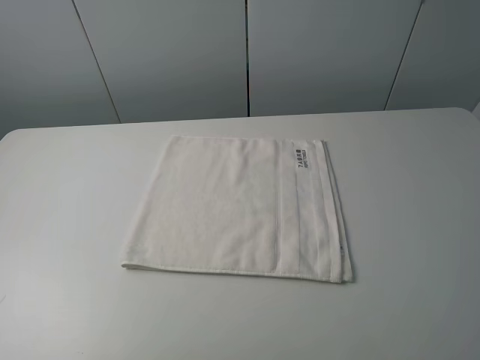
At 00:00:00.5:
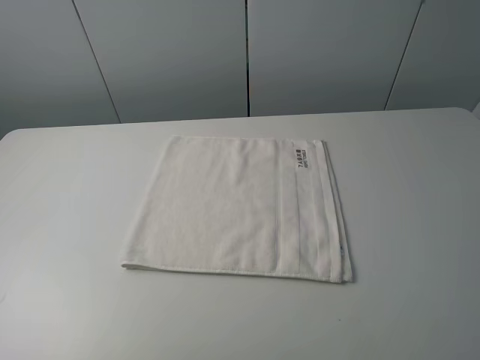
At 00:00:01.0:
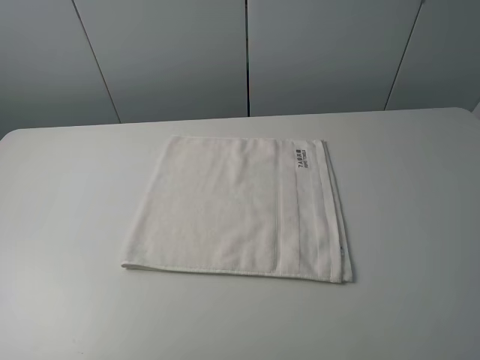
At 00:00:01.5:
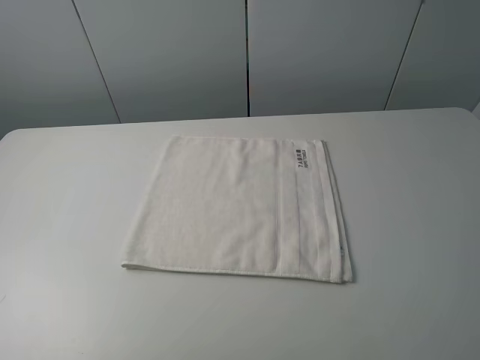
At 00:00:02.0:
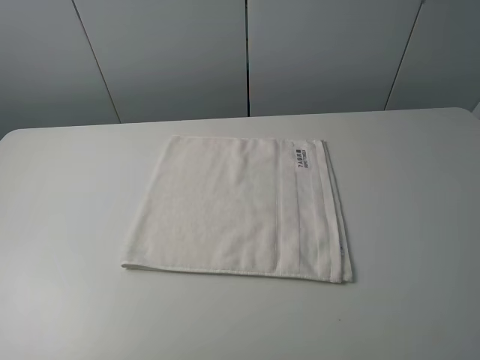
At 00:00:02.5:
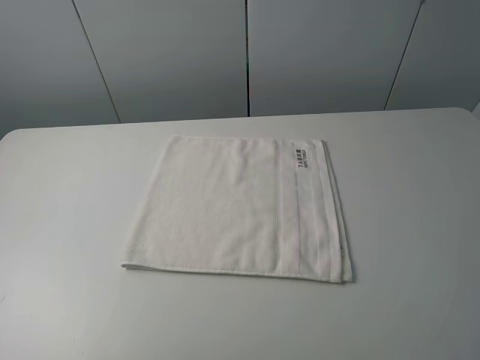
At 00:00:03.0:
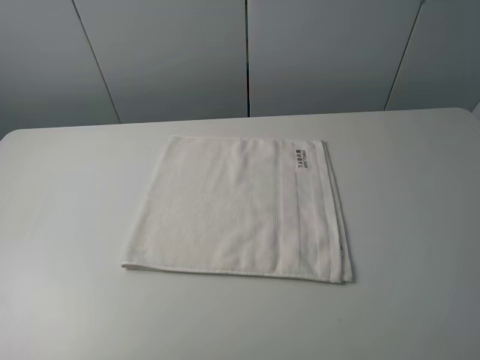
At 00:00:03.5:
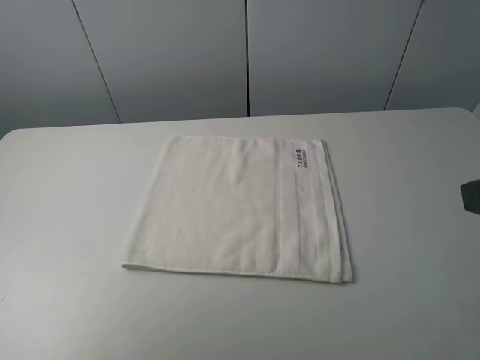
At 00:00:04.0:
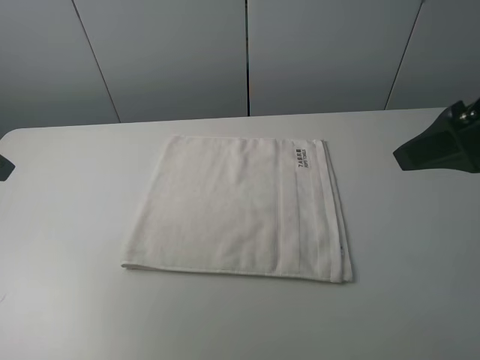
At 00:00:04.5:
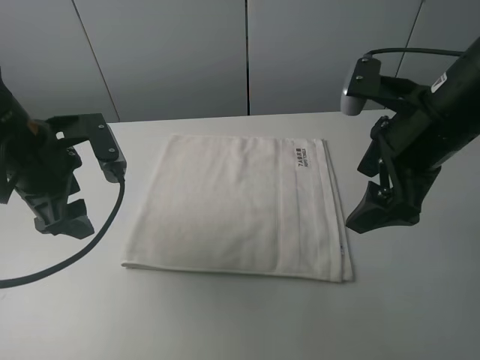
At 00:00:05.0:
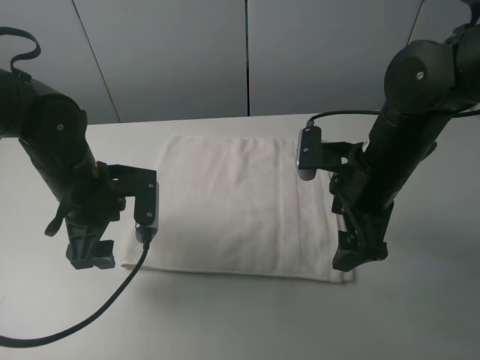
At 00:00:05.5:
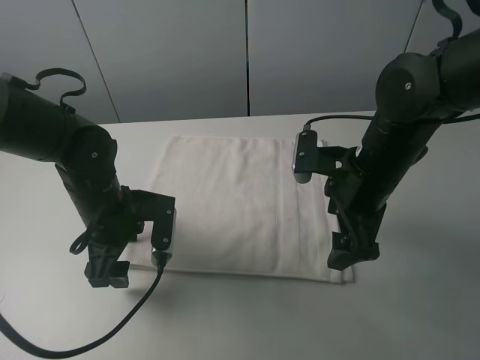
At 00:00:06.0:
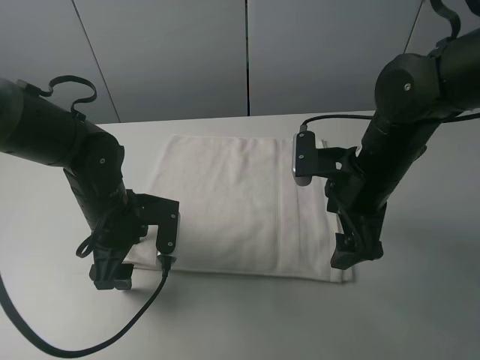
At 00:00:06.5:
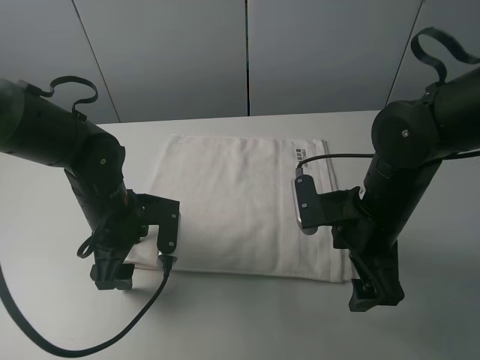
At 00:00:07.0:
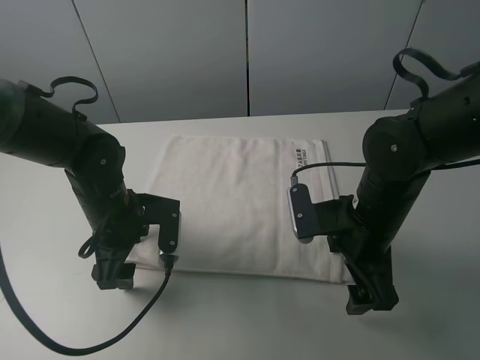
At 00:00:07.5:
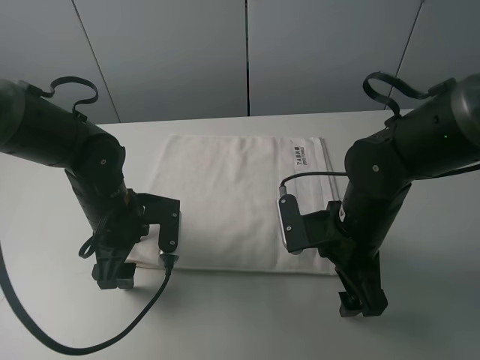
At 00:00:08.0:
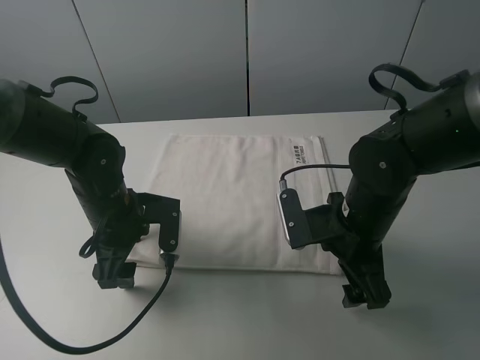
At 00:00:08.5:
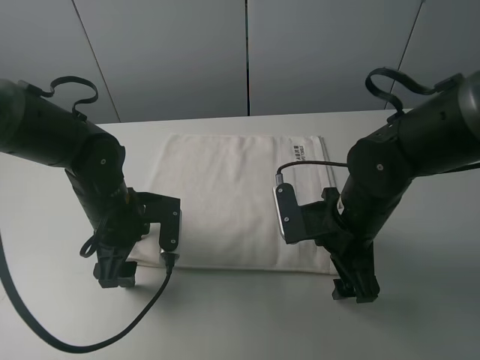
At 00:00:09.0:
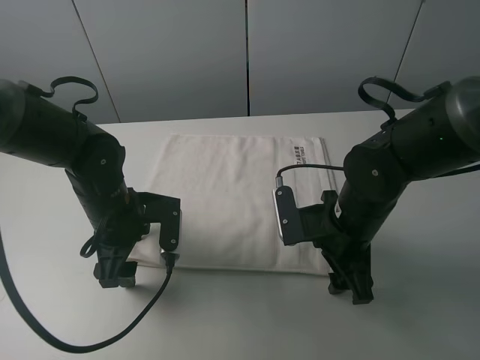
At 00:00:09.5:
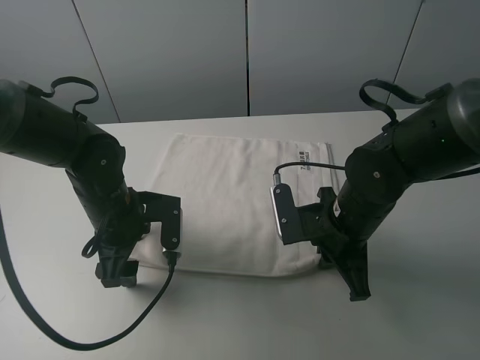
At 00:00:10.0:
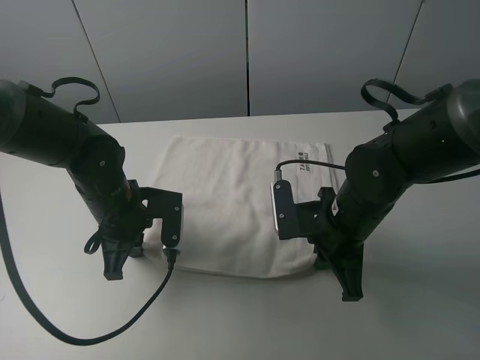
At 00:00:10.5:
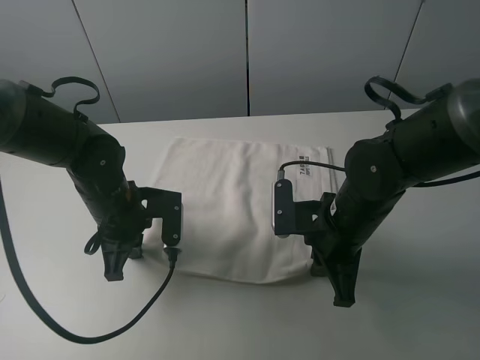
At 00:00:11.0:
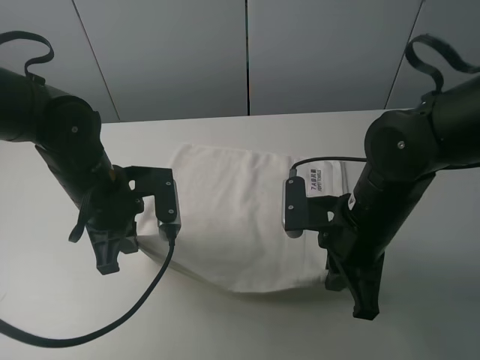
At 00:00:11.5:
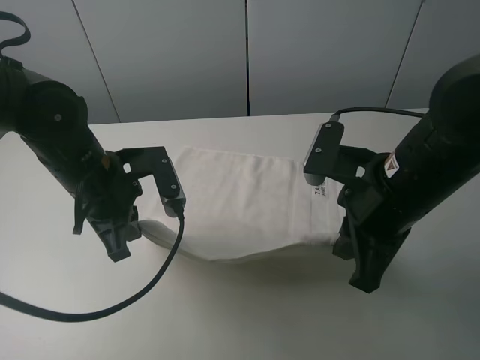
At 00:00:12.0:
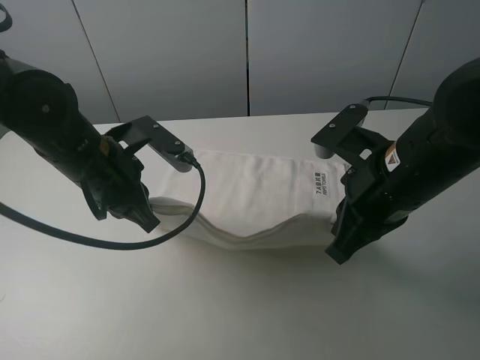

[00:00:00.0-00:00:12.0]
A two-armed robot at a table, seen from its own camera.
Task of the whole recording: fold the towels on the table.
Step, 00:00:00.0 to 00:00:09.0: Grasp the white towel with the right gripper.
00:00:02.0 to 00:00:04.0: The two grippers go about 20 cm forward.
00:00:04.0 to 00:00:06.0: The right gripper is displaced downward and to the left by roughly 15 cm. The left gripper is displaced downward and to the right by about 25 cm.
00:00:06.0 to 00:00:08.0: The right gripper moves about 5 cm.
00:00:08.0 to 00:00:10.0: The left gripper closes. Meanwhile the right gripper closes its fingers.
00:00:10.0 to 00:00:12.0: Both grippers travel together upward, some 10 cm.

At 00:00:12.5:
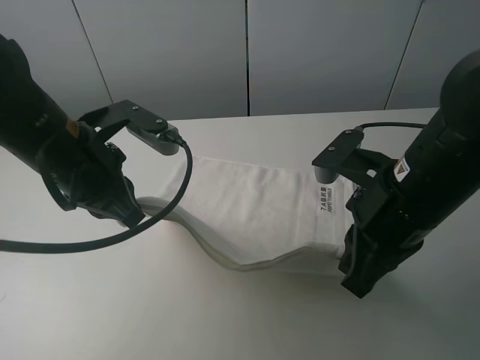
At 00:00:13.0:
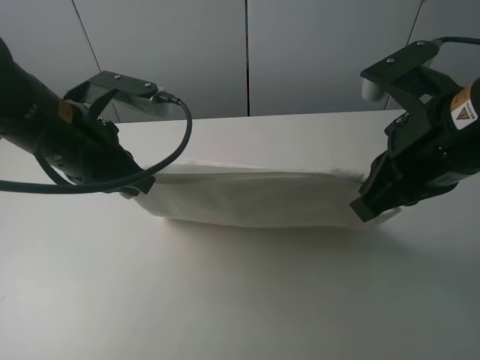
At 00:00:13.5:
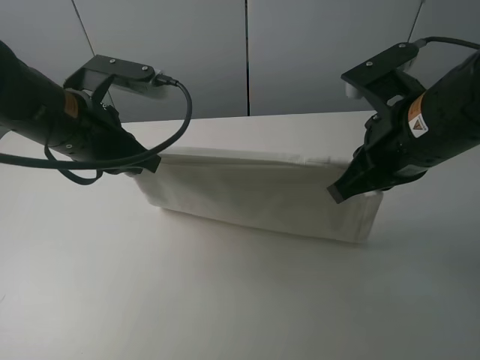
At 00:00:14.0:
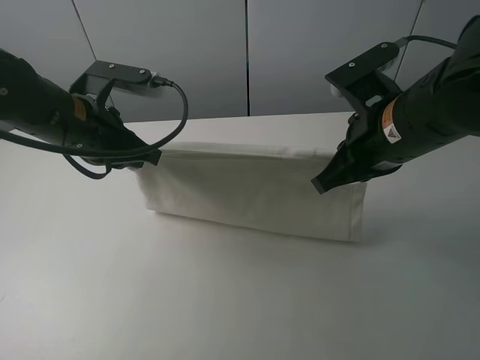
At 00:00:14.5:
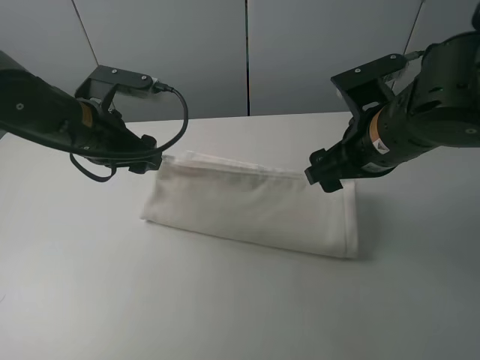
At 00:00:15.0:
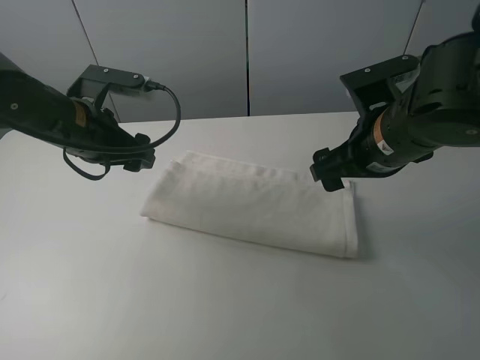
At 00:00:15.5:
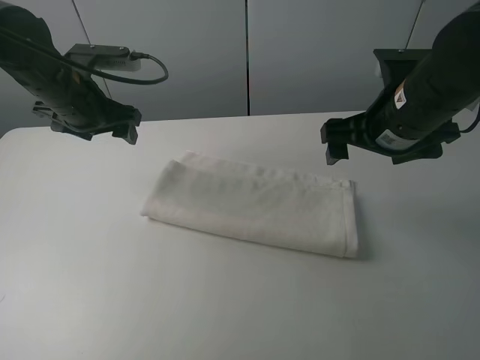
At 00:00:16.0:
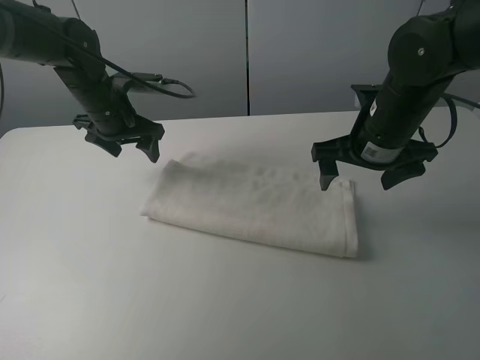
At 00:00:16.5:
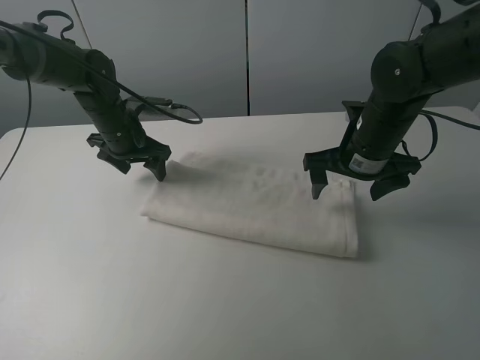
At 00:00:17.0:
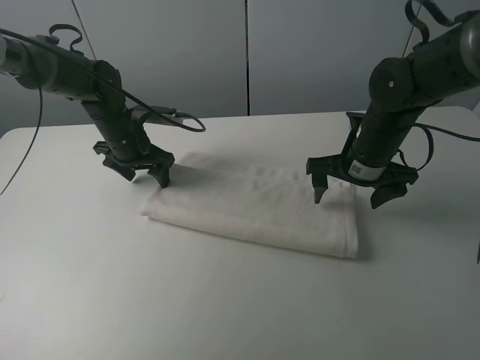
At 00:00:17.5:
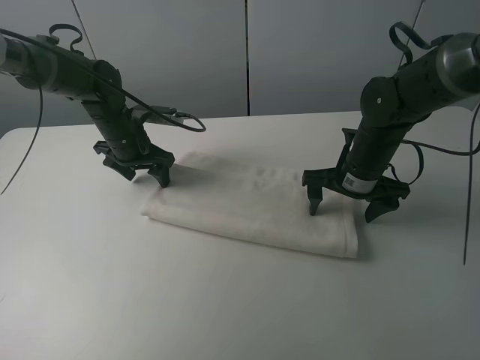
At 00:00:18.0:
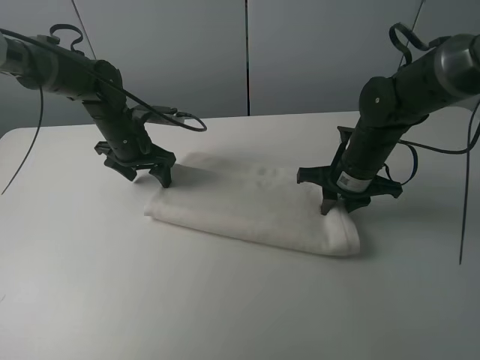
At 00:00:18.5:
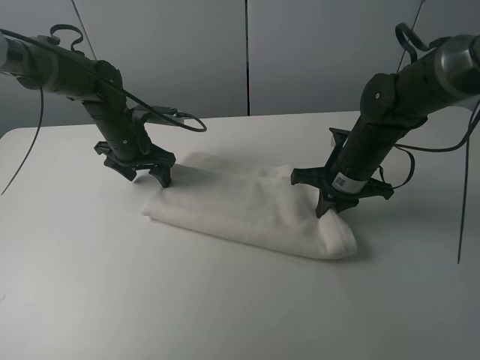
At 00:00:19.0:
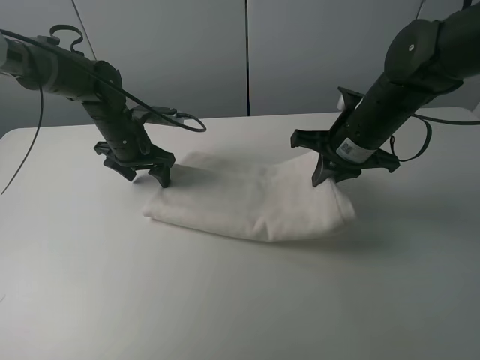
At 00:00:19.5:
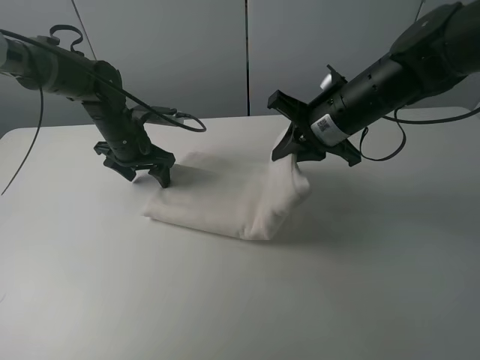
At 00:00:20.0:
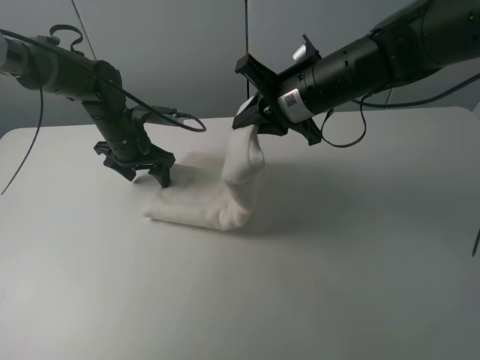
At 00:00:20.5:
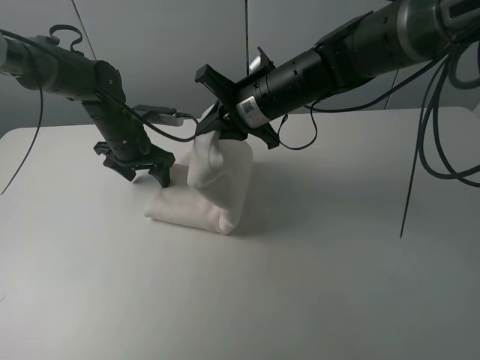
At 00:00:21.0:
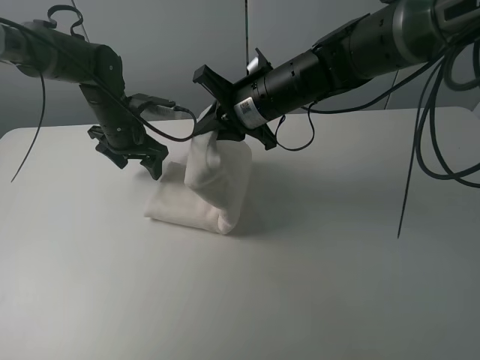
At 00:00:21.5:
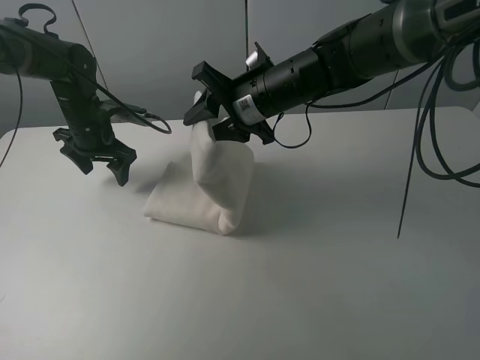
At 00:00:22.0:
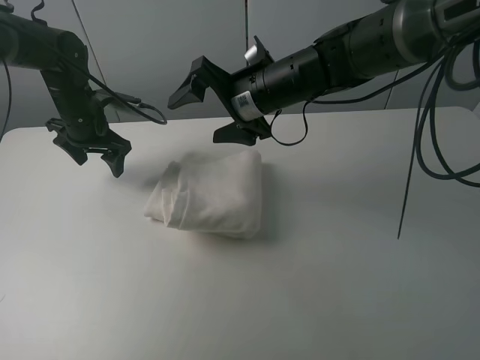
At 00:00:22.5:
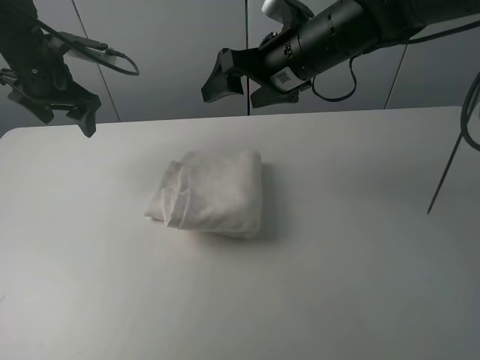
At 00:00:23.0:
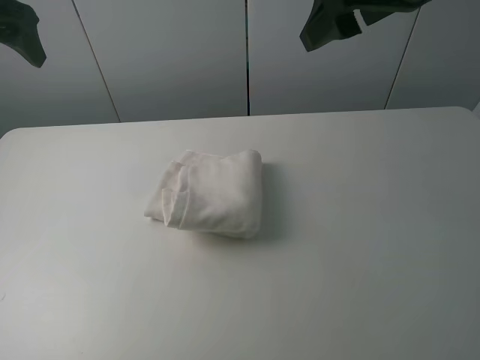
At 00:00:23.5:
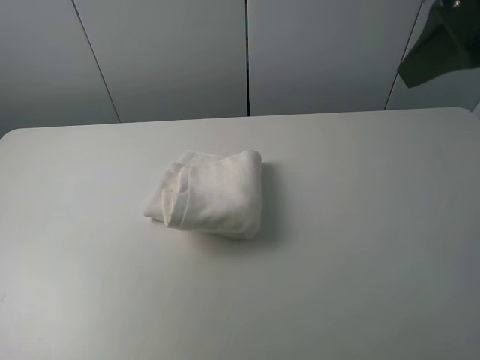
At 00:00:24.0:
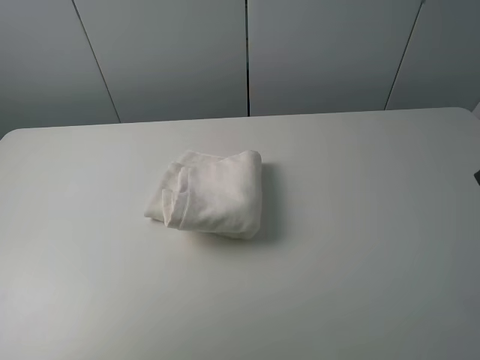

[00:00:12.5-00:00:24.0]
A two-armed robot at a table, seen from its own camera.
Task of the whole recording: fold the towels on the table.
Step, 00:00:12.5 to 00:00:14.5: Fold the white towel upwards with the right gripper.
Step, 00:00:15.0 to 00:00:16.5: Press on the white towel with the left gripper.
Step, 00:00:17.0 to 00:00:22.0: Fold the white towel from right to left with right gripper.
00:00:12.5 to 00:00:14.5: The two grippers go approximately 5 cm forward. The right gripper opens its fingers; the left gripper opens up.
00:00:14.5 to 00:00:16.5: The right gripper moves forward, about 5 cm. Meanwhile the left gripper shifts some 15 cm forward and downward.
00:00:16.5 to 00:00:18.5: The right gripper shifts by some 5 cm, and closes up.
00:00:18.5 to 00:00:20.0: The right gripper heads upward and to the left, covering approximately 15 cm.
00:00:20.0 to 00:00:22.0: Both grippers move to the left, some 5 cm. The right gripper opens.
00:00:22.0 to 00:00:24.0: The left gripper heads backward, upward and to the left, covering approximately 40 cm; the right gripper shifts about 35 cm backward, to the right and upward.

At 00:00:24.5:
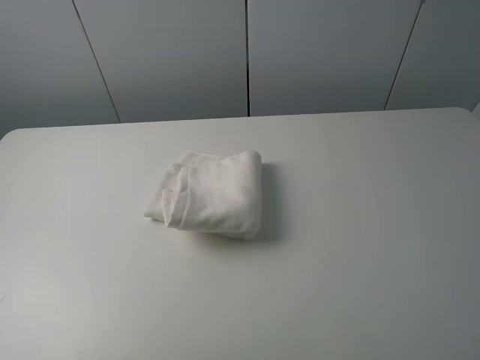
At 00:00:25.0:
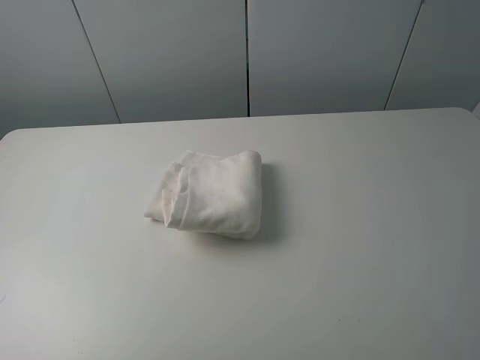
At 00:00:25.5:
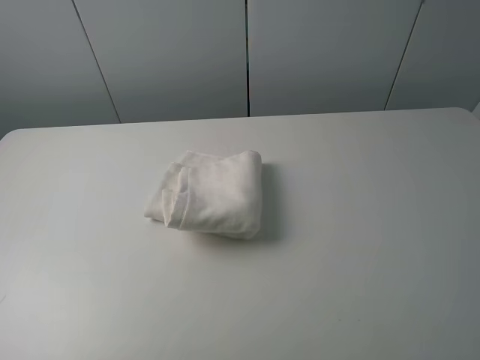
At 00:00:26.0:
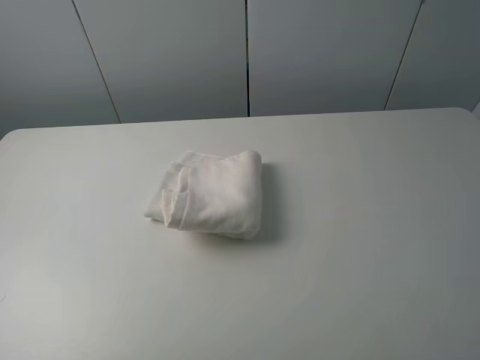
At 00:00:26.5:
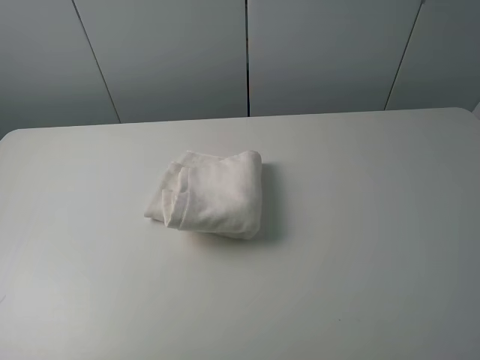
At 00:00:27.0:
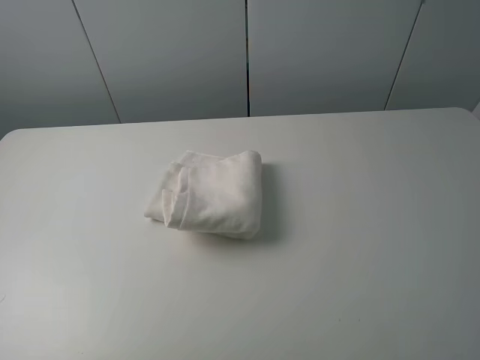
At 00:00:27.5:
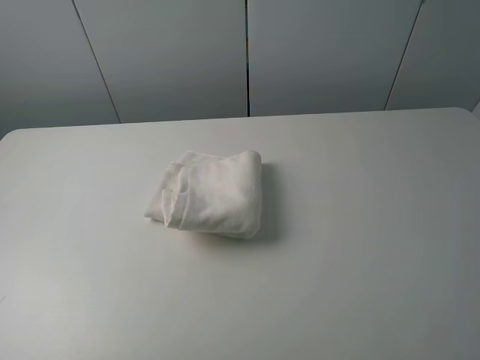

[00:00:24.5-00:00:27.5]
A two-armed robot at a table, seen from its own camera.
Task of the whole recording: fold the towels on the table.
00:00:26.0 to 00:00:27.5: Both grippers stay about where they are.
